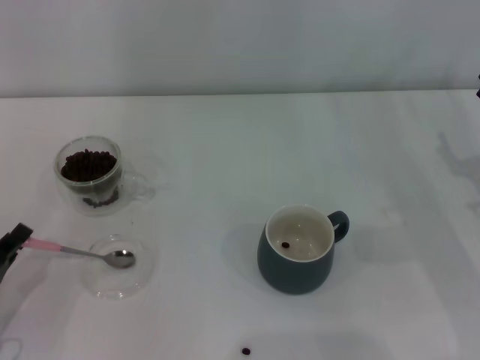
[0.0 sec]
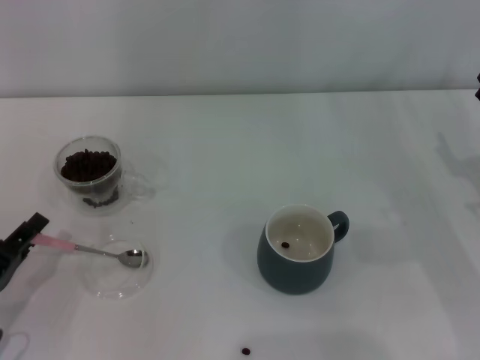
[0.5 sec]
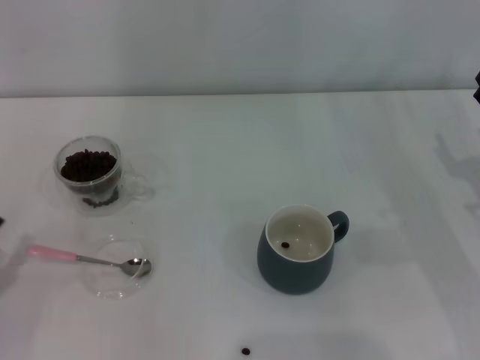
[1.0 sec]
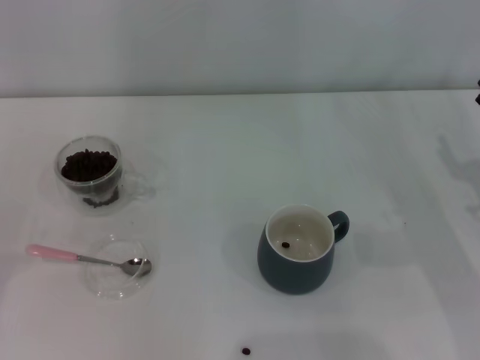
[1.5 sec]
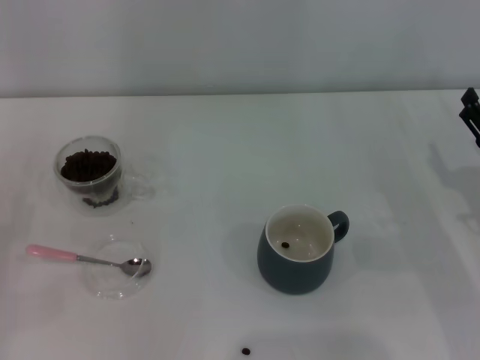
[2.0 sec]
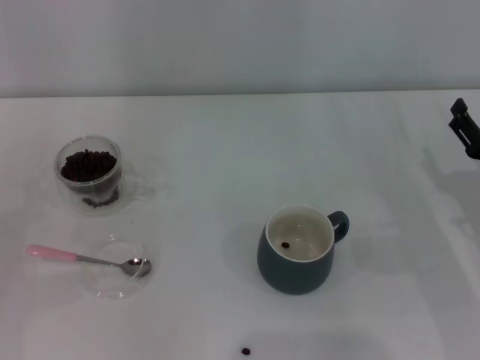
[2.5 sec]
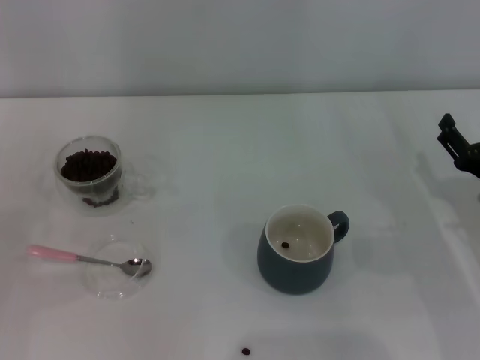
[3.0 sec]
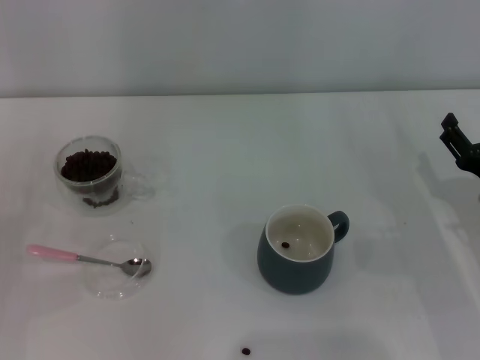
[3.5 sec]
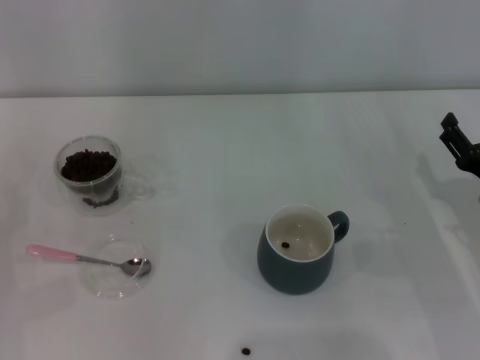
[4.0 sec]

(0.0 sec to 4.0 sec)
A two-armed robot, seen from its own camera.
Task of the whole recording: Use a pink spoon to take out the coffee beans from the glass and pour them into the gray cup.
0.0 sec - 2.0 sec: The left gripper moves to the left, about 5 cm, and opens.
2.0 sec - 4.0 sec: The grippers make only small movements.
